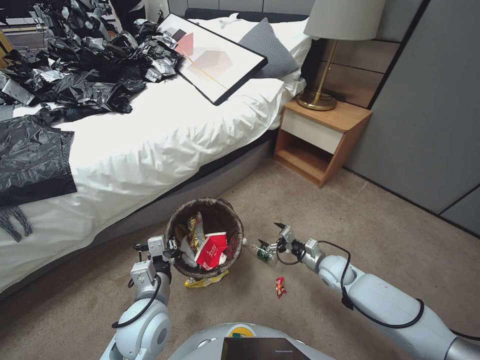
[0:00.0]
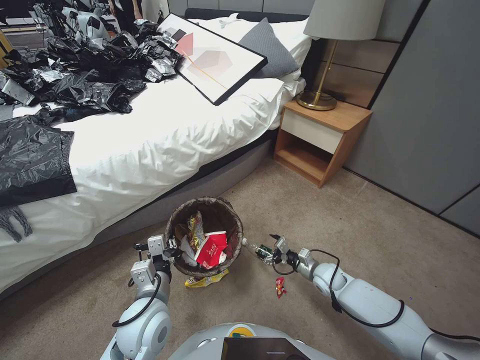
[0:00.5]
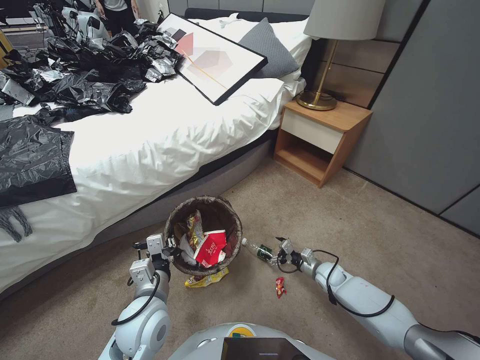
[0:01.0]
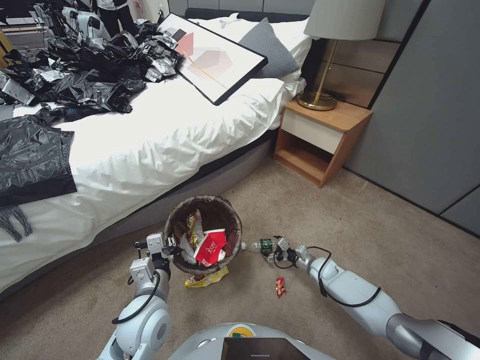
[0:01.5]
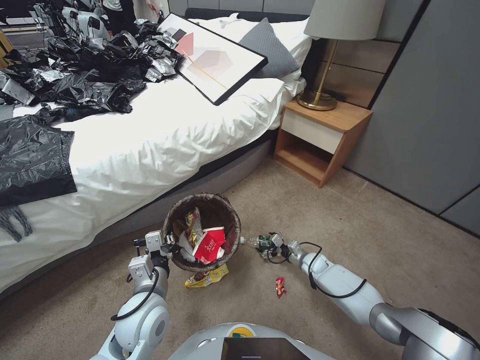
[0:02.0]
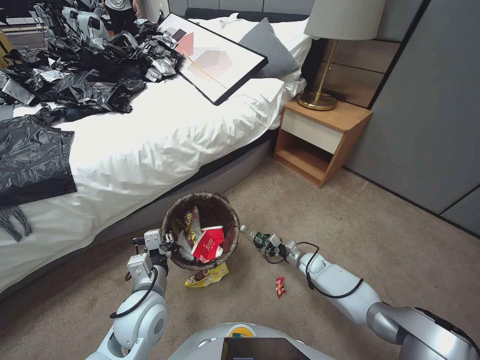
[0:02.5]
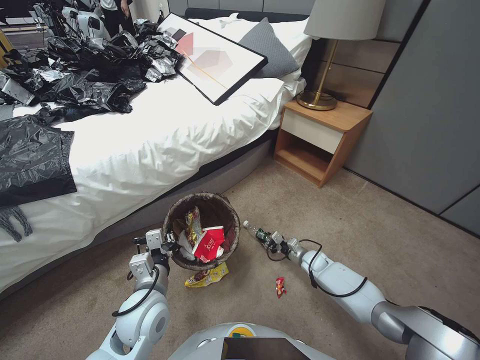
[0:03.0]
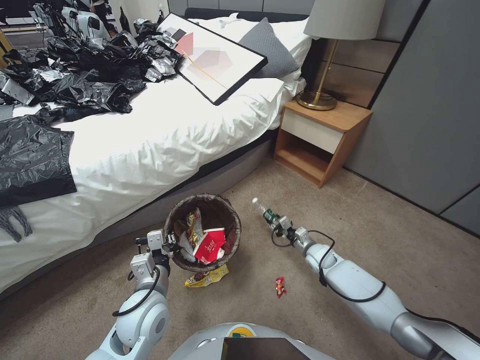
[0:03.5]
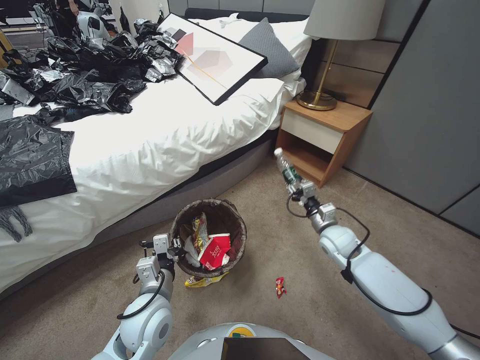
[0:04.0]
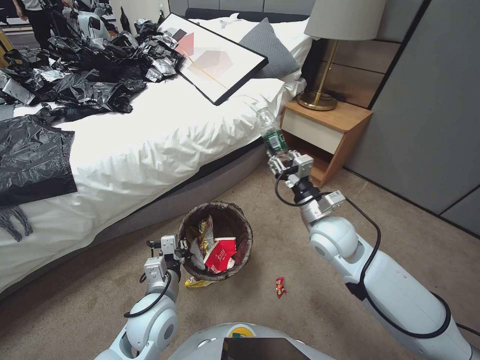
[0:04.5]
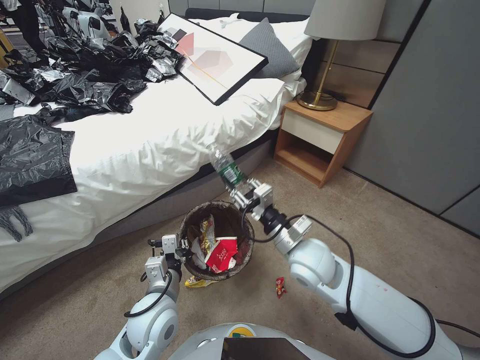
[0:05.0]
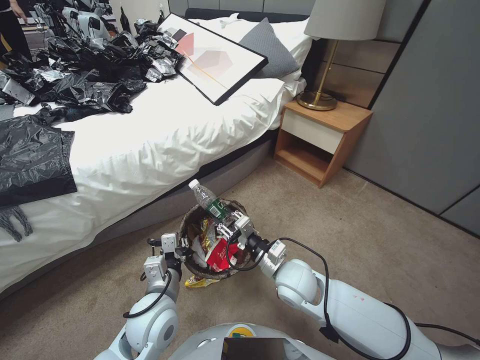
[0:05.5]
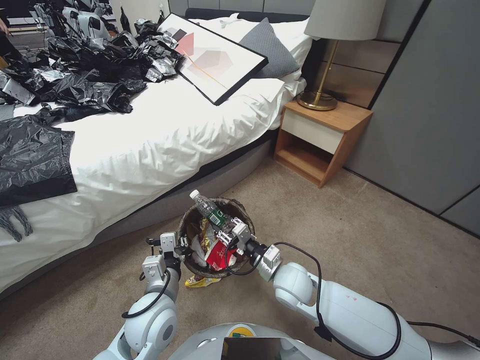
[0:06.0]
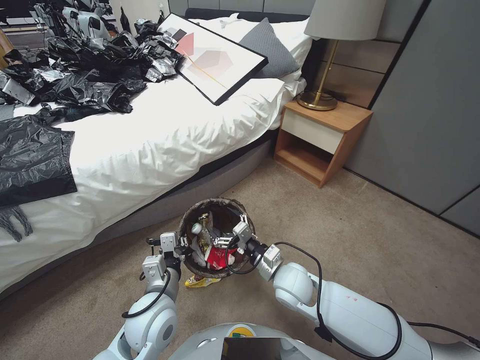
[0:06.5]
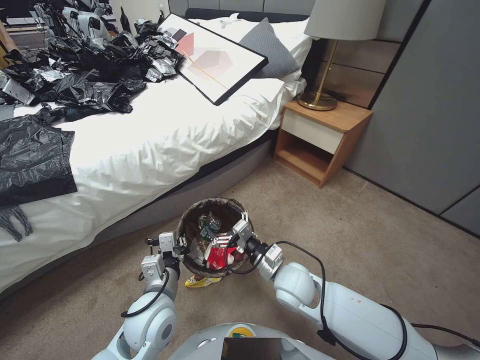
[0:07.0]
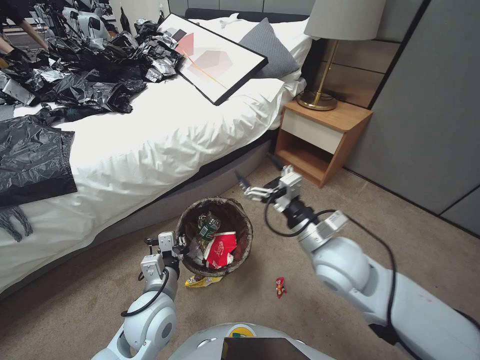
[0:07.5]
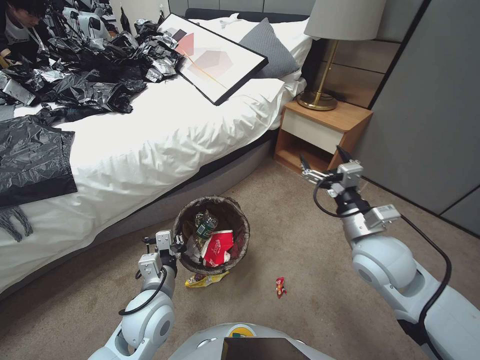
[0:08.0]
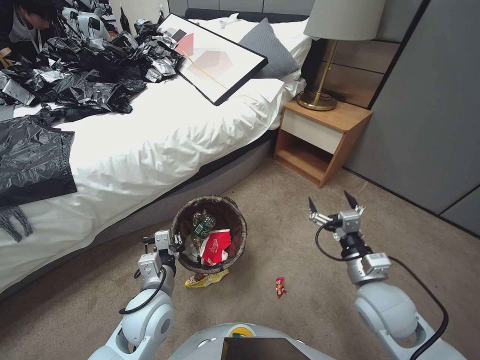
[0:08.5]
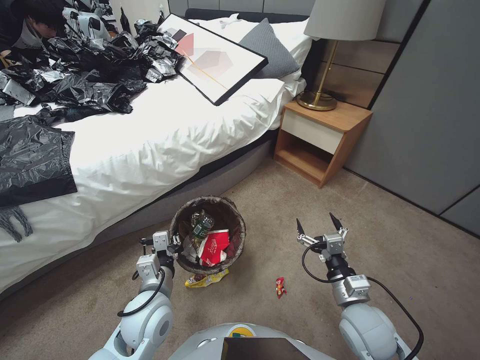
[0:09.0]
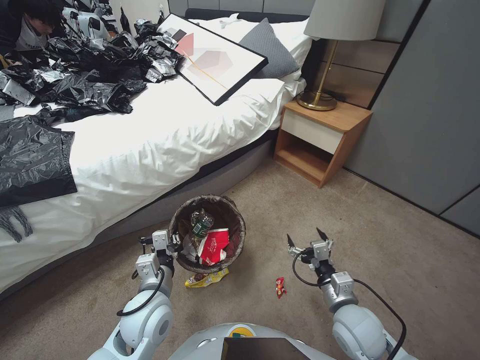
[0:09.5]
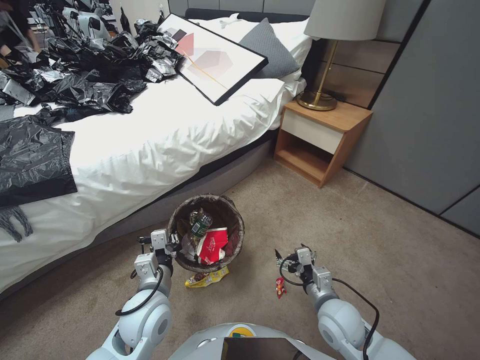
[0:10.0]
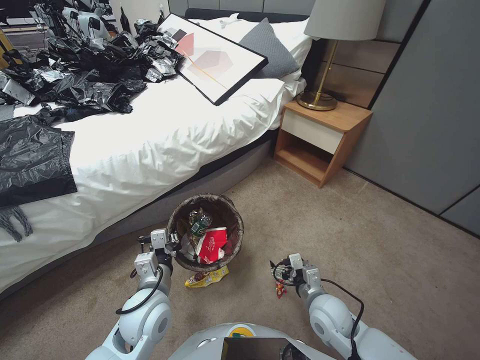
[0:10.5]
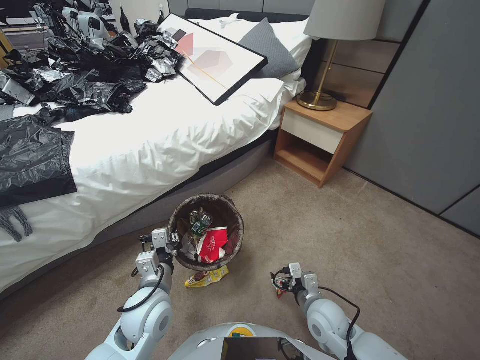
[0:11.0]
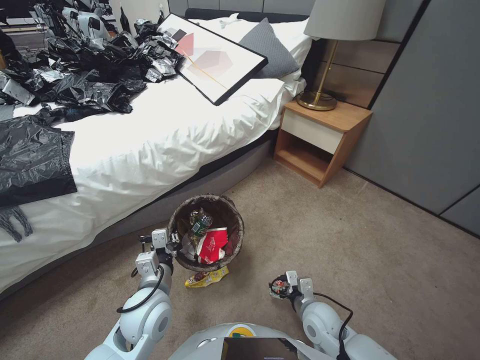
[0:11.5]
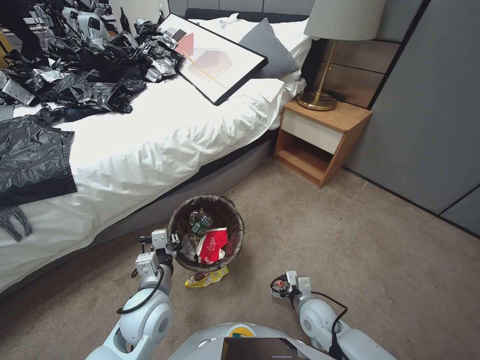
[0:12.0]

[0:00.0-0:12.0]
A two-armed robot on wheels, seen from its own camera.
Task of the whole recording: Pick up the trash bin, then pick up the garbage from the floor and place it into the trash bin.
0:00.0 to 0:02.0: The right gripper moves downward, some 15 cm.
0:02.0 to 0:04.0: The right gripper travels upward by some 20 cm, and closes up.
0:04.0 to 0:06.0: The right gripper is displaced to the left and backward by approximately 20 cm.
0:06.0 to 0:08.0: The right gripper travels upward and to the right by roughly 20 cm, and opens up.
0:08.0 to 0:10.0: The right gripper is displaced downward and backward by about 20 cm.
0:10.0 to 0:12.0: The right gripper is displaced downward by some 10 cm.

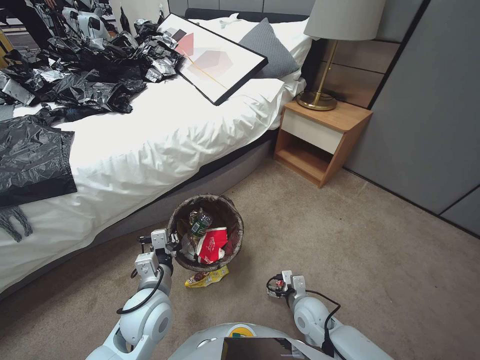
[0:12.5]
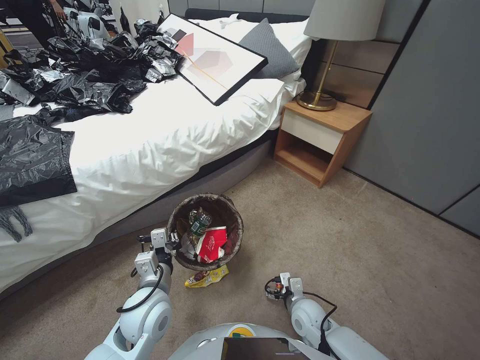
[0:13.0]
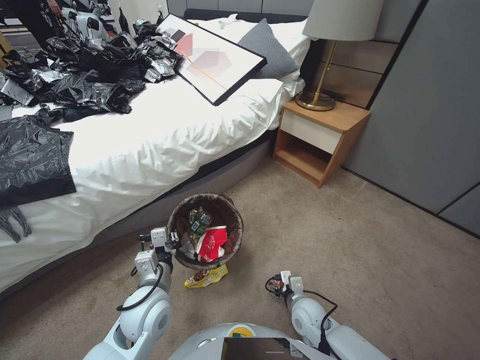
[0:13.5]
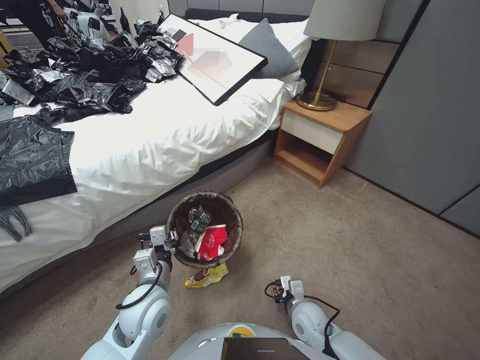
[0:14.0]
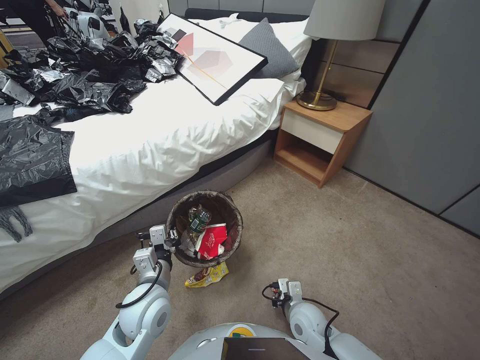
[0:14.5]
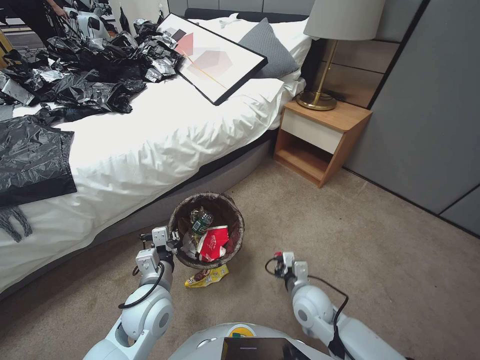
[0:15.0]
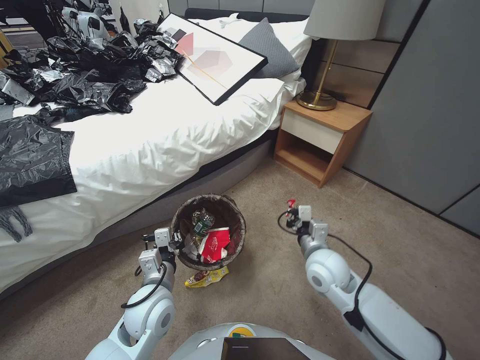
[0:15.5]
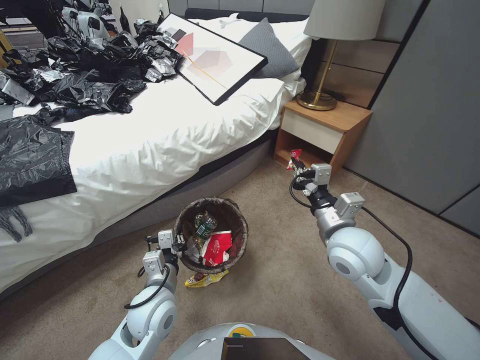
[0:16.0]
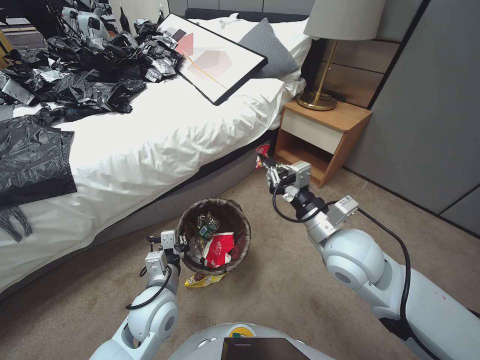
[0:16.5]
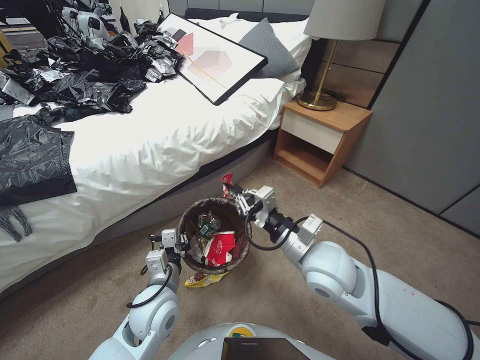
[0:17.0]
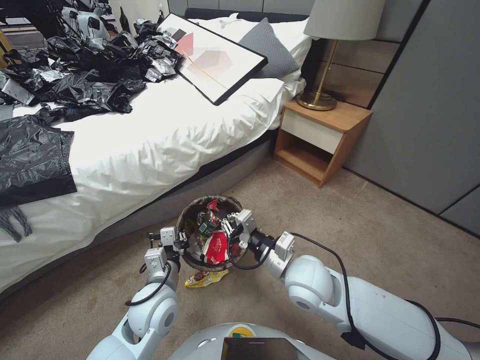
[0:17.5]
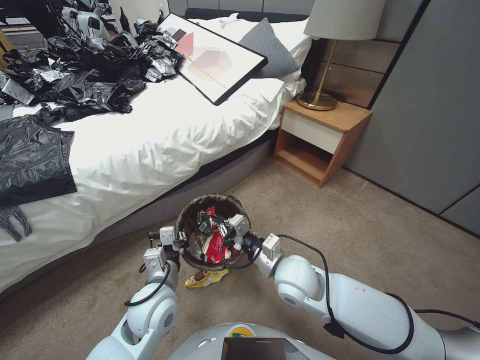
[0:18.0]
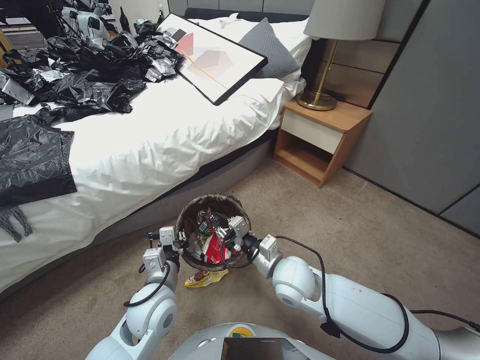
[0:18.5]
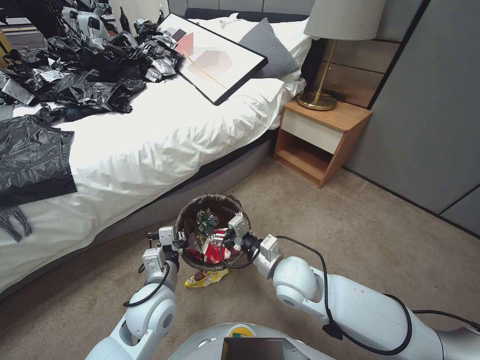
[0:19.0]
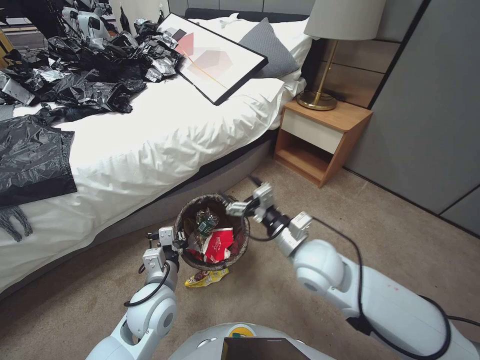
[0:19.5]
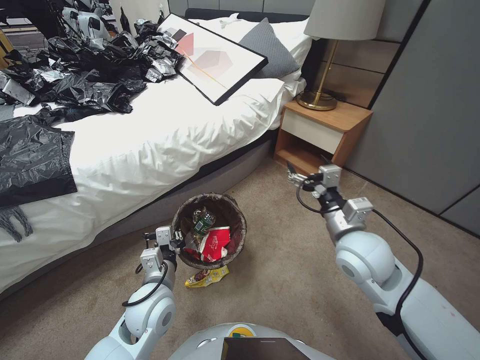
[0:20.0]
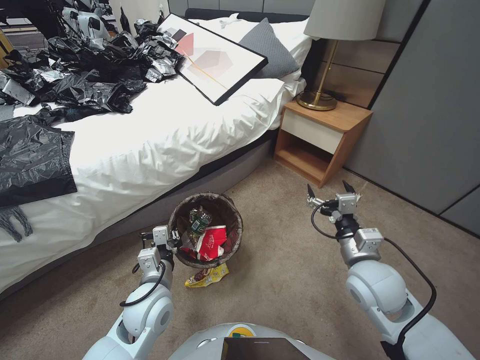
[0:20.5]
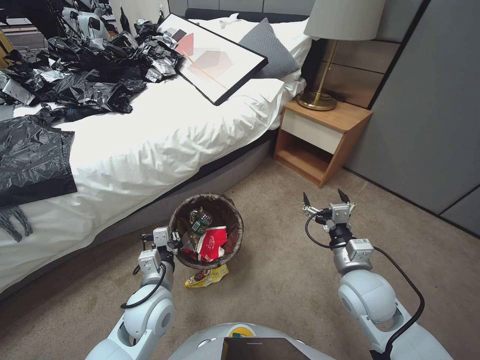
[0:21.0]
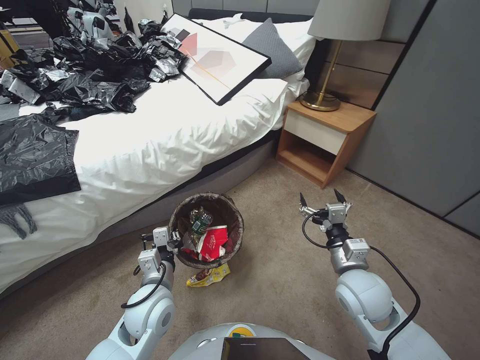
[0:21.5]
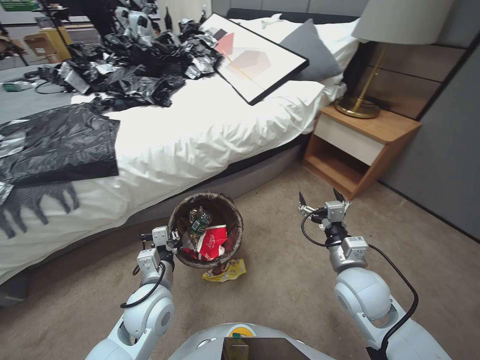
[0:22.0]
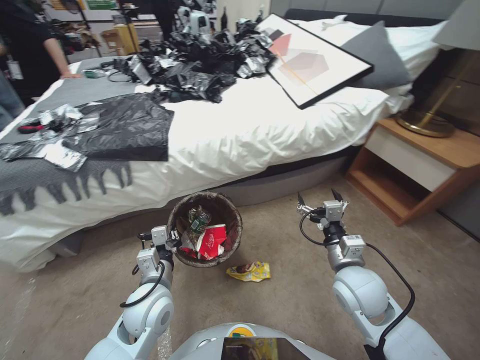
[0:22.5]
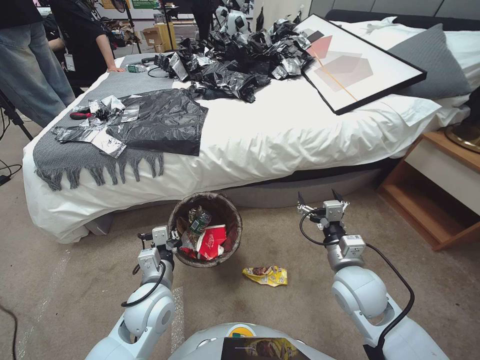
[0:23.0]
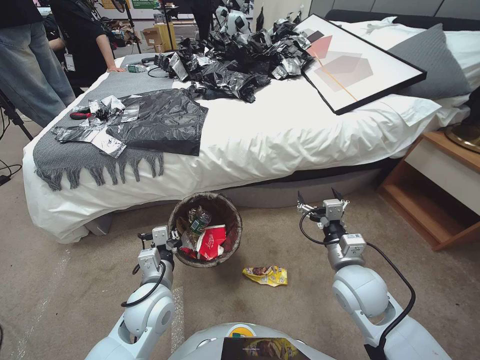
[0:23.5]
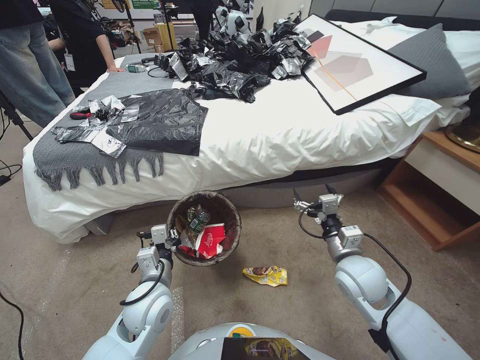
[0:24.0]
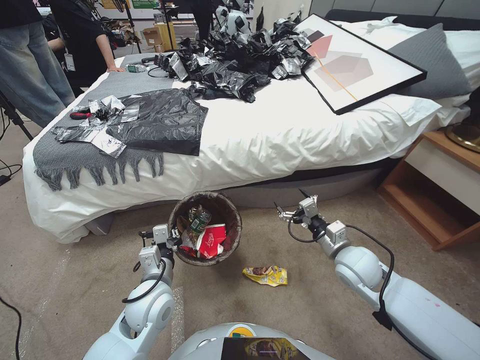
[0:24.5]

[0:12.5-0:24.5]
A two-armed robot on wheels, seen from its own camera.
Task of the whole recording: Pick up the trash bin, then pick up the garbage from the floor and place it into the trash bin.
0:12.5 to 0:14.5: The right gripper closes.
0:14.5 to 0:16.5: The right gripper is displaced upward by some 30 cm.
0:16.5 to 0:18.5: The right gripper travels downward and to the left by about 15 cm.
0:18.5 to 0:20.5: The right gripper shifts some 15 cm to the right, and opens its fingers.
0:22.5 to 0:24.5: The right gripper shifts roughly 5 cm forward.

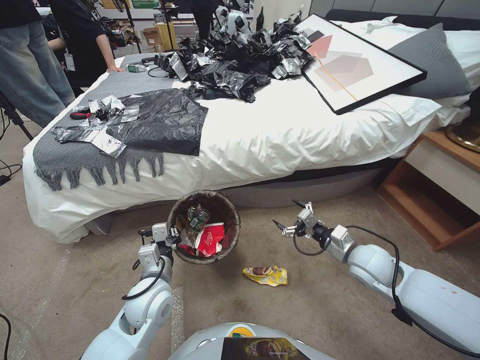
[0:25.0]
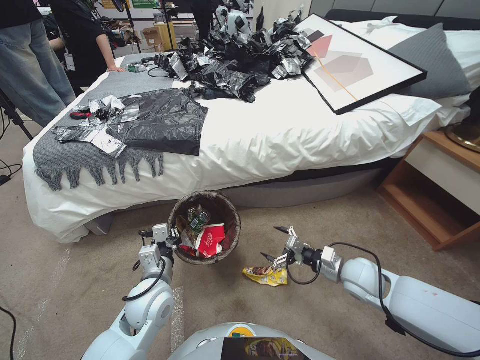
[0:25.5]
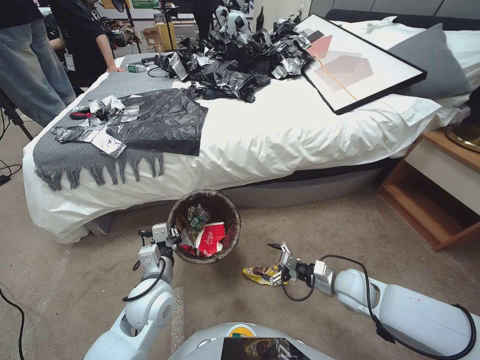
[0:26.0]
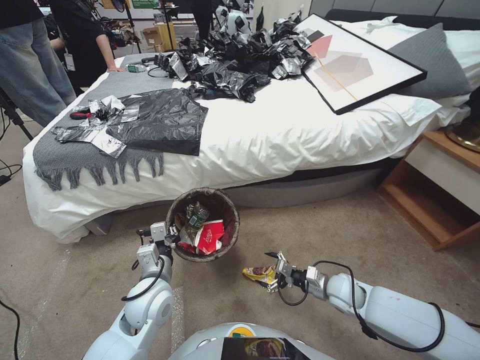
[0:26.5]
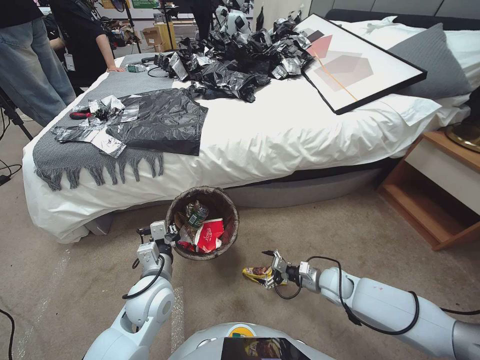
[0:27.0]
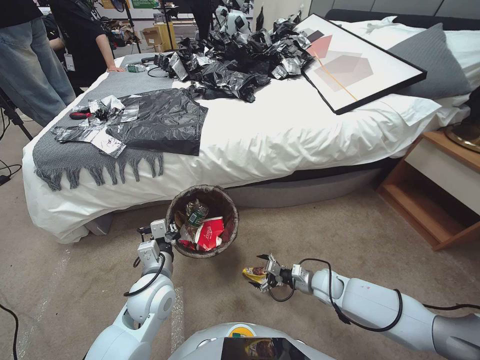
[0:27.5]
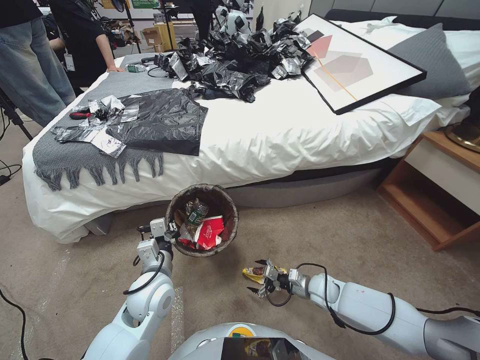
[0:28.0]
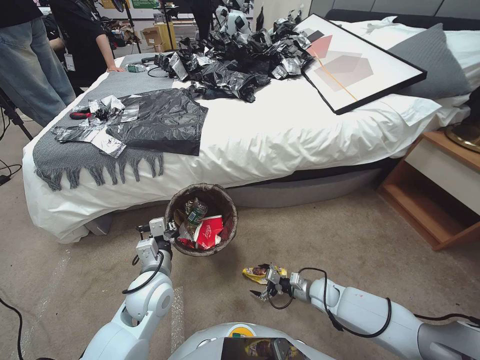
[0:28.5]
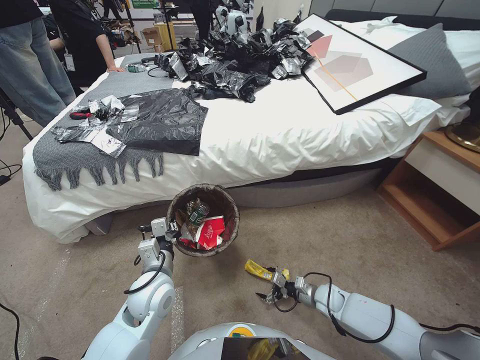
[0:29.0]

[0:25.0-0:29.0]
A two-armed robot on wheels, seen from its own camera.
Task of the whole recording: Pick up the trash bin, then pick up the garbage from the floor and place it into the trash bin.
0:25.0 to 0:27.0: The right gripper is displaced downward by some 15 cm.
0:27.0 to 0:29.0: The right gripper is displaced downward by about 10 cm.
